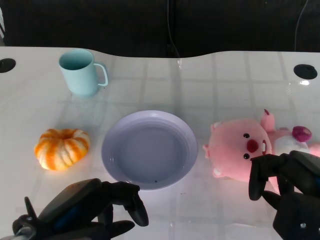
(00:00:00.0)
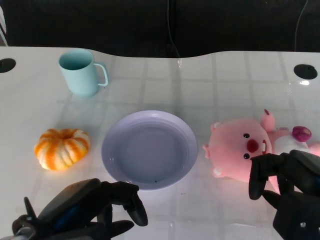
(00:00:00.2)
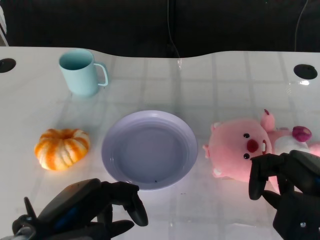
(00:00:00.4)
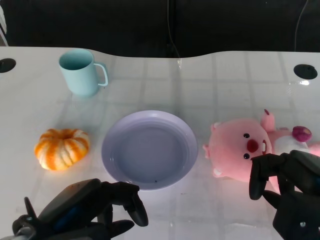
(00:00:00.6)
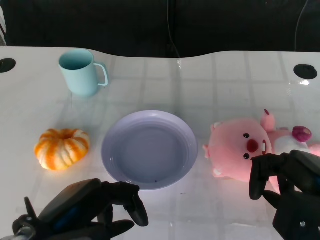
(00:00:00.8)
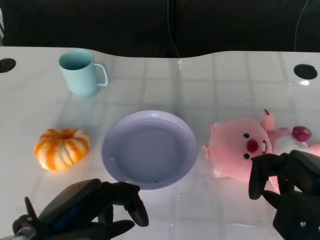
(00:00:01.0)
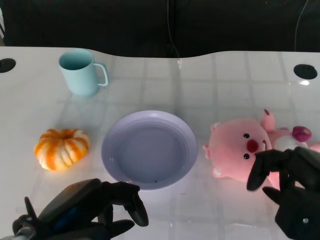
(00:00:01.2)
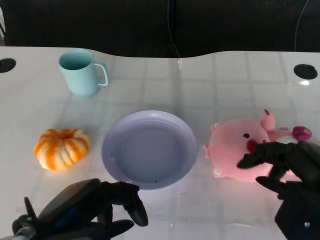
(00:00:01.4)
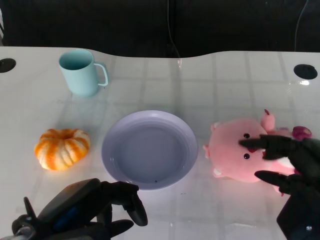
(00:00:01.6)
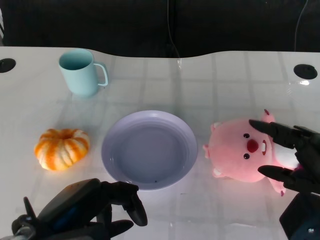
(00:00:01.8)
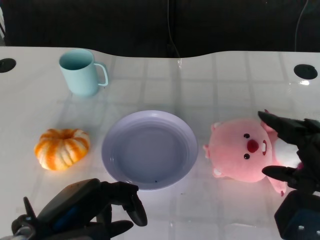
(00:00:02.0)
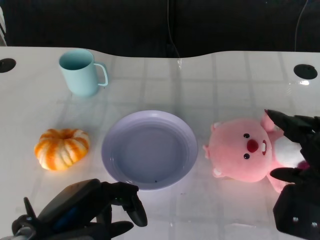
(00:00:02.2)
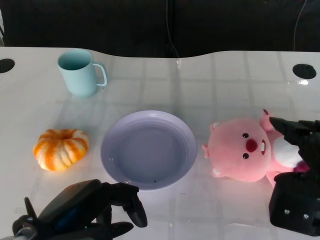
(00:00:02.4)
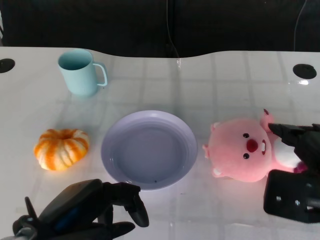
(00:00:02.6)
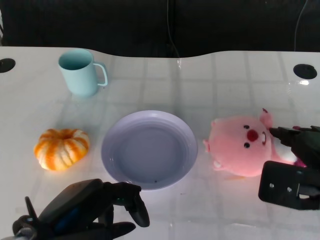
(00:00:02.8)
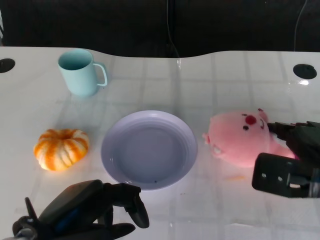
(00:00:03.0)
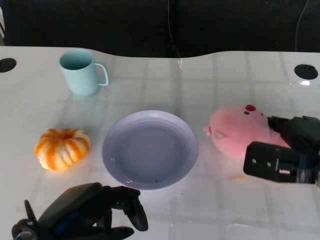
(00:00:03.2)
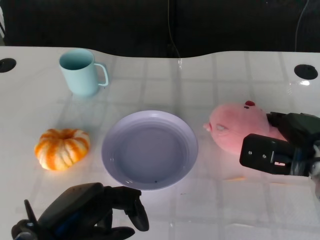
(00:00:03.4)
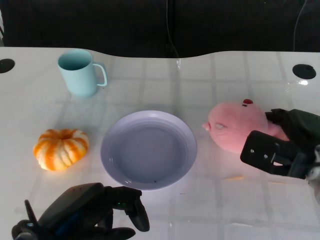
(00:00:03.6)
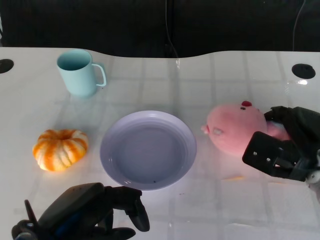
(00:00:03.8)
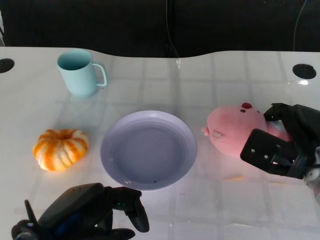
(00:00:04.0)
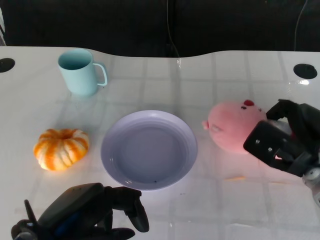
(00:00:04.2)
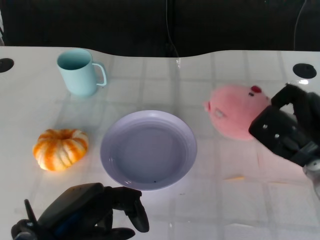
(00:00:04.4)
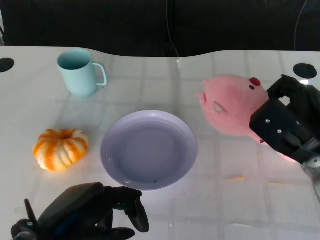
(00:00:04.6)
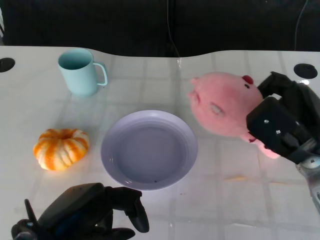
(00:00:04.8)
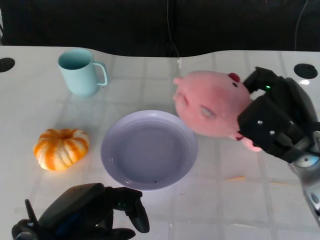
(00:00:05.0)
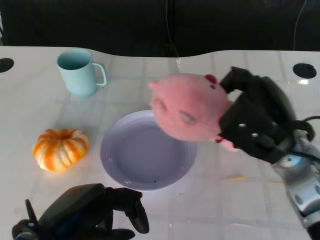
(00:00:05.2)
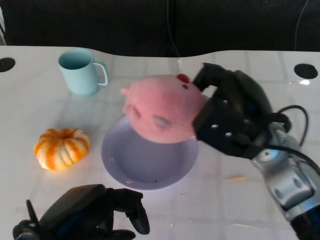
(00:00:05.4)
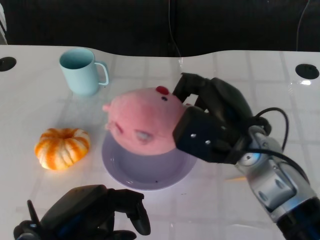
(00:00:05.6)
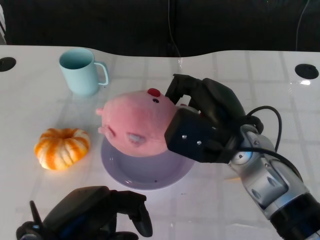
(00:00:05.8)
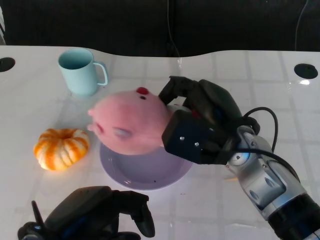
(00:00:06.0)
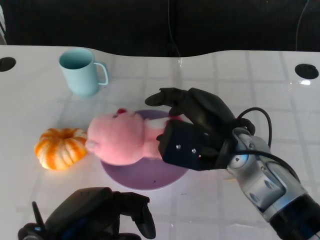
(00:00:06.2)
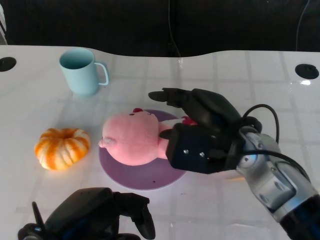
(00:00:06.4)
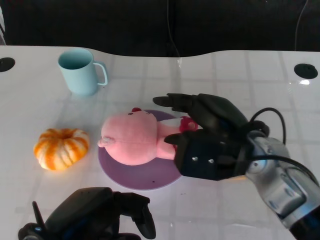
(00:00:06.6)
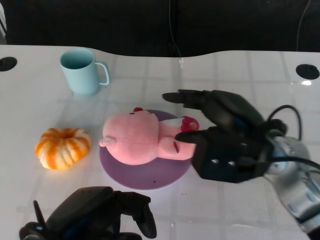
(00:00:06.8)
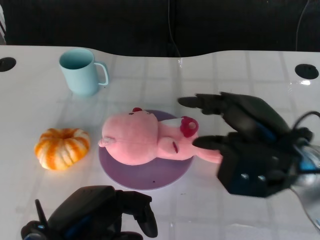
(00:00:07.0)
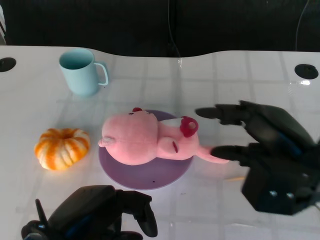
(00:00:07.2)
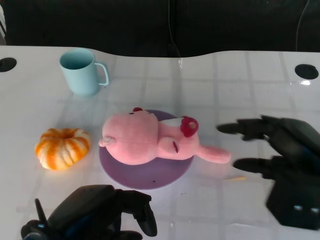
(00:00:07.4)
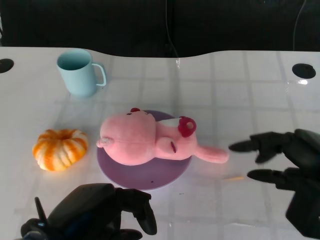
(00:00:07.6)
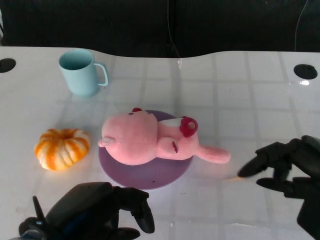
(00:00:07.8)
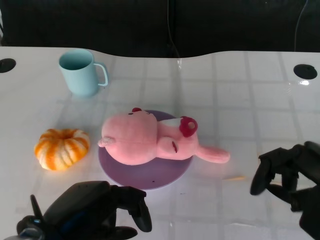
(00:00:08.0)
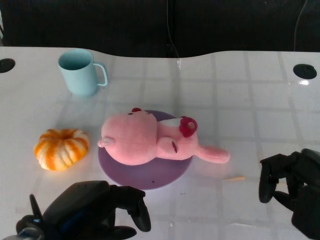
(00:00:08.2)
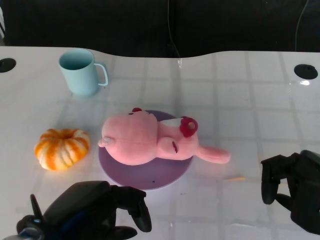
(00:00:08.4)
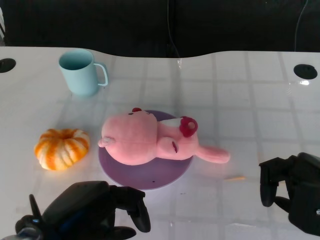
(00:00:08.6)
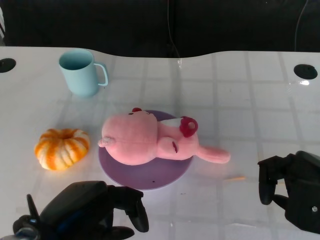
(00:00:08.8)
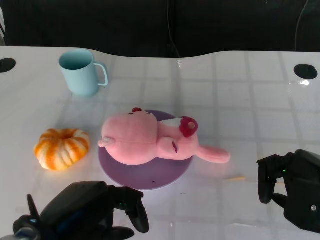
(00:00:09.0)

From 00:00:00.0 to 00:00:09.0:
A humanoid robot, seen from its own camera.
Task of the whole recording: Pick up the doll on the other side of the plate and place it into the plate.
Step, from 00:00:01.2 to 00:00:04.8: Grasp the pink doll with the right gripper.
Step, from 00:00:05.0 to 00:00:06.6: Place the pink doll into the plate with the right gripper.
From 00:00:01.6 to 00:00:03.0: The right hand travels forward by about 5 cm.
From 00:00:04.4 to 00:00:06.0: The right hand goes about 10 cm to the left.
From 00:00:06.0 to 00:00:07.6: The right hand shifts approximately 15 cm to the right and backward.
From 00:00:07.6 to 00:00:09.0: The hands move only a little.

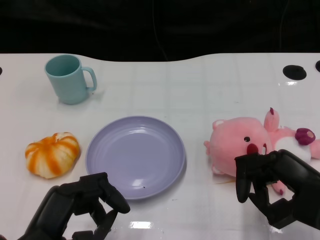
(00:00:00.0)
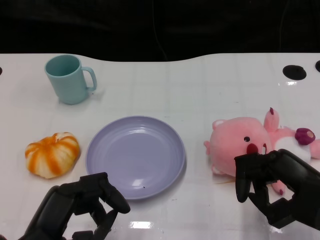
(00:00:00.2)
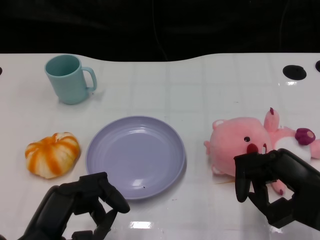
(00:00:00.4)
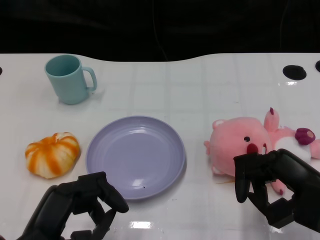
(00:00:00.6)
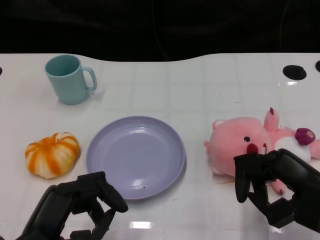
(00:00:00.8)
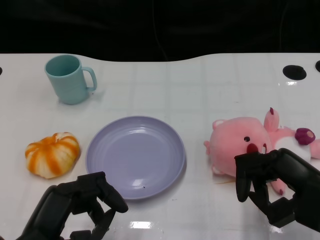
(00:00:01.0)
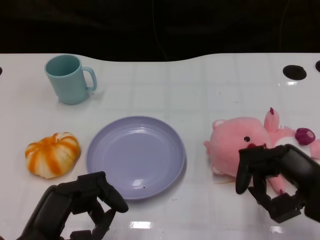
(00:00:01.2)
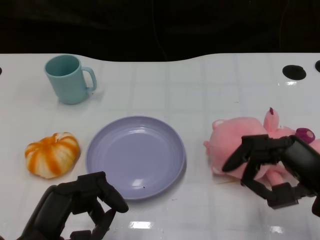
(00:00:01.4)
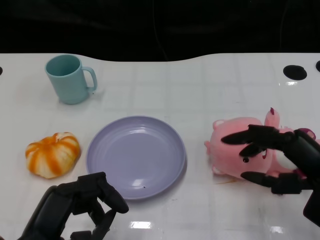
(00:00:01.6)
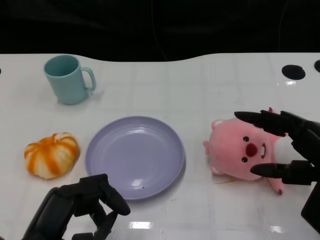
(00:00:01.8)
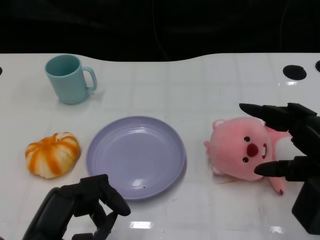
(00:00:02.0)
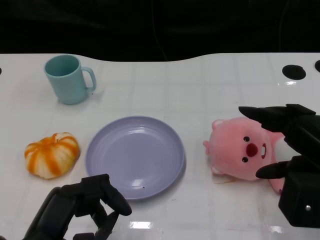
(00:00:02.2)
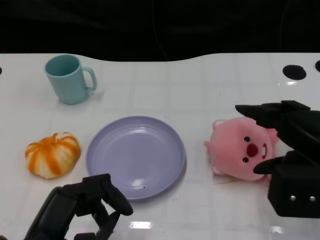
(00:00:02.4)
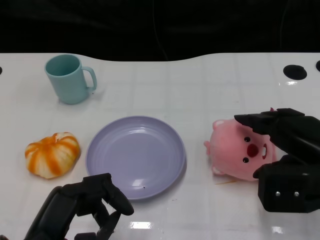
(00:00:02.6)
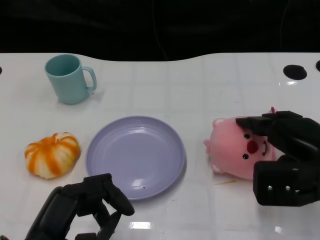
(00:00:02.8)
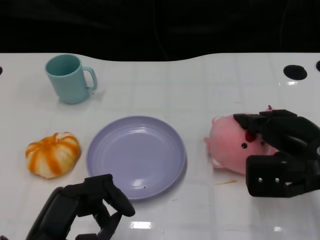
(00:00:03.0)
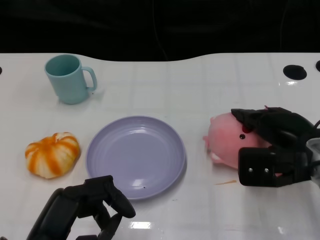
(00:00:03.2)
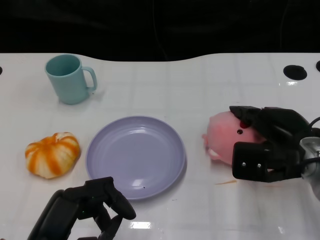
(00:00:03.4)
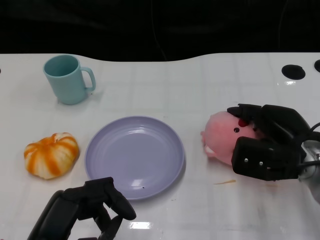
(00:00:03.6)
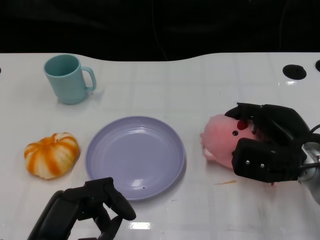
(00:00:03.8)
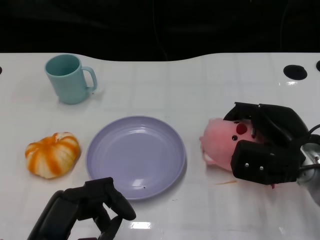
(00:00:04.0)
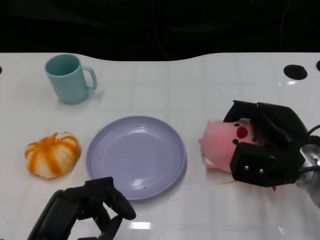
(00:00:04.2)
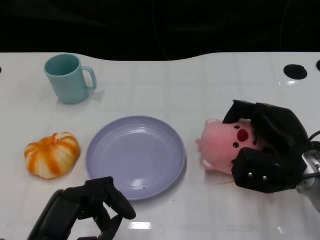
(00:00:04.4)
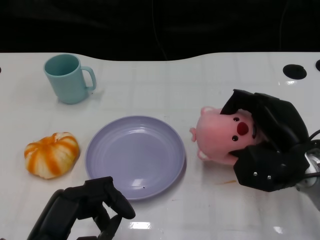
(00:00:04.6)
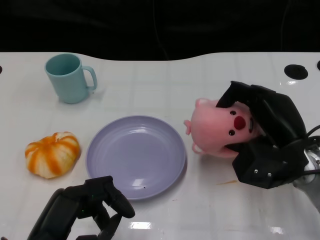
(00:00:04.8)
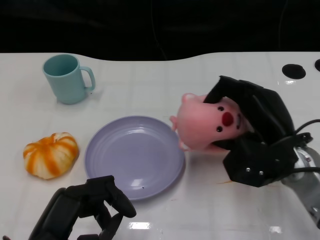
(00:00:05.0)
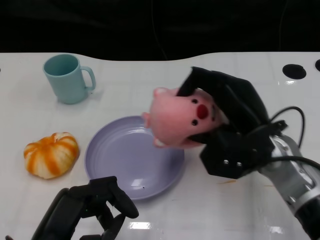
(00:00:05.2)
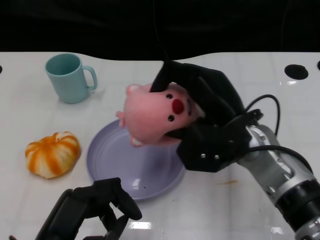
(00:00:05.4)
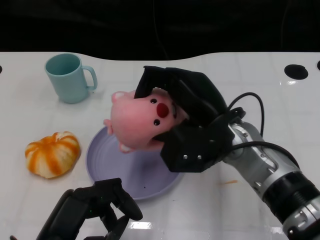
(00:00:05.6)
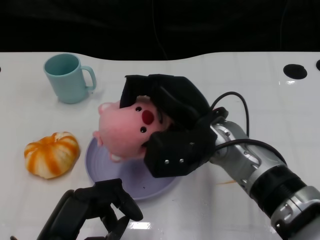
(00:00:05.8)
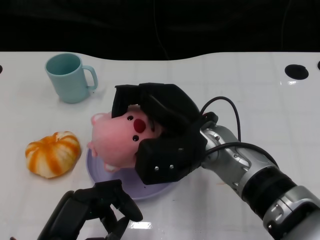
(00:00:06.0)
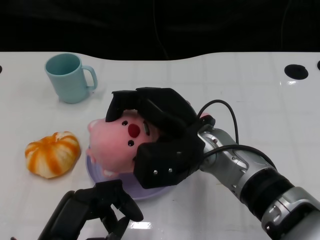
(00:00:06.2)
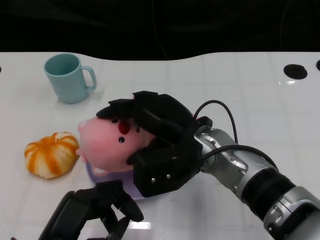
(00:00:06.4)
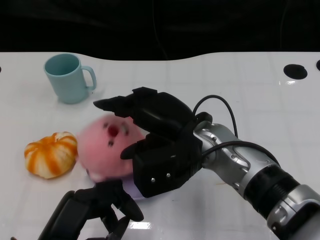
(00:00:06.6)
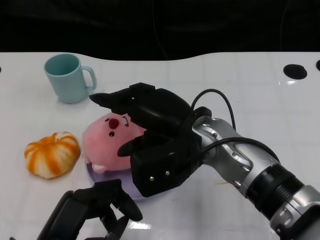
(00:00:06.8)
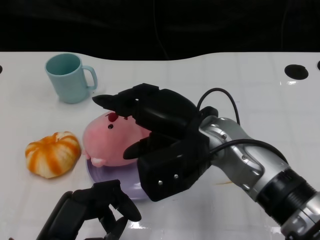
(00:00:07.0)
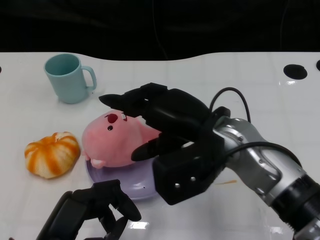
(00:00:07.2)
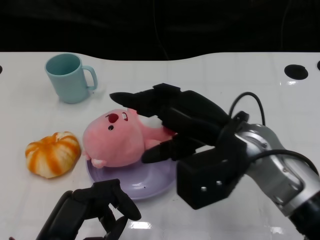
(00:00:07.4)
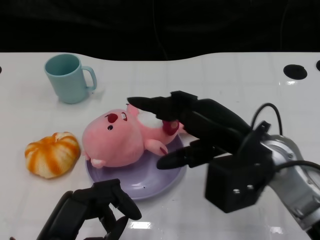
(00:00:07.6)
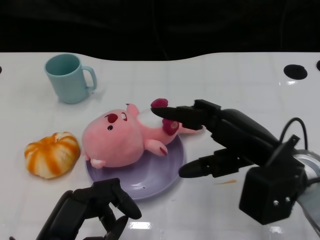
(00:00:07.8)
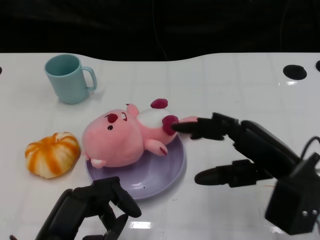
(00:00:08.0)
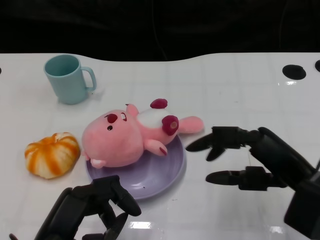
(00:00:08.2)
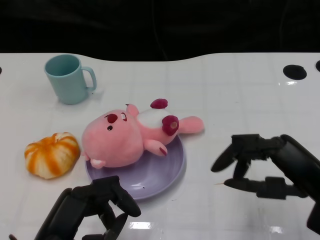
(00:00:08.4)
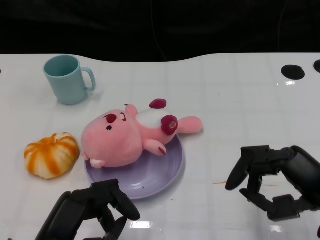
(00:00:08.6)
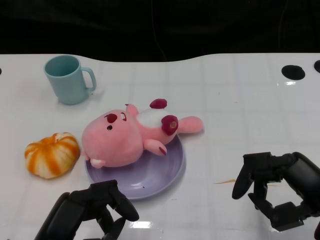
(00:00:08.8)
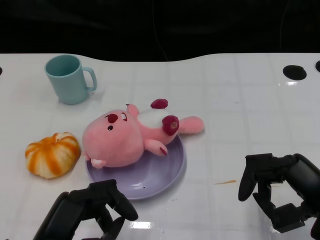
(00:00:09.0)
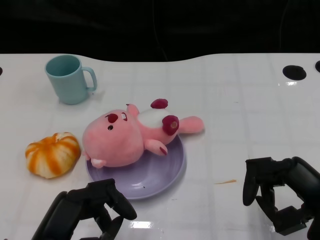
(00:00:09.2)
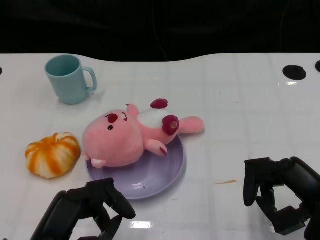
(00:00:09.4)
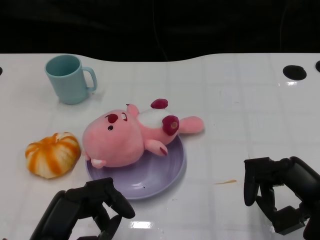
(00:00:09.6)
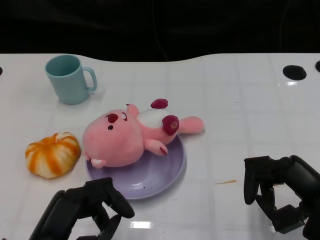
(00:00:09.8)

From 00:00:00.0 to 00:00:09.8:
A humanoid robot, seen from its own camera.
Task of the whole recording: Pick up the doll on the other side of the plate and place it into the plate.
Step, from 00:00:01.0 to 00:00:05.2: Grasp the pink doll with the right gripper.
Step, from 00:00:05.4 to 00:00:07.2: Place the pink doll into the plate with the right gripper.
From 00:00:02.8 to 00:00:04.2: The right hand travels downward by about 5 cm.
From 00:00:04.2 to 00:00:05.6: The right hand goes some 10 cm to the left and upward.
From 00:00:07.0 to 00:00:08.4: The right hand is displaced to the right and backward by approximately 20 cm.
From 00:00:08.4 to 00:00:09.8: The hands stay close to where they were, moving slightly.
